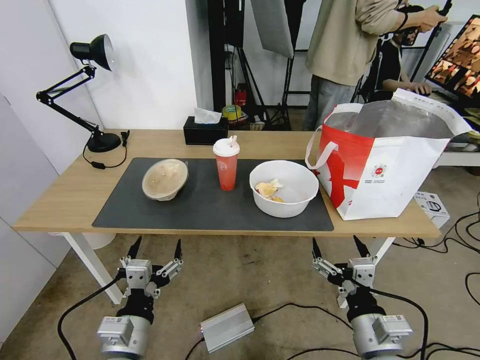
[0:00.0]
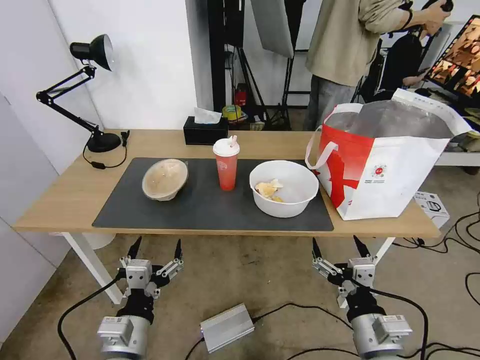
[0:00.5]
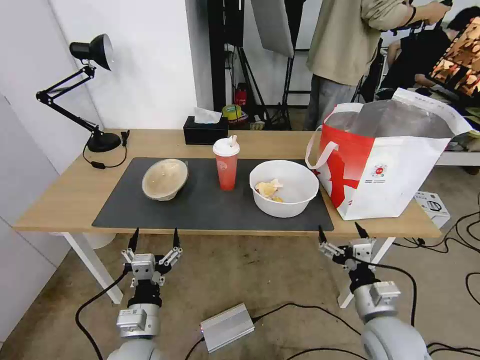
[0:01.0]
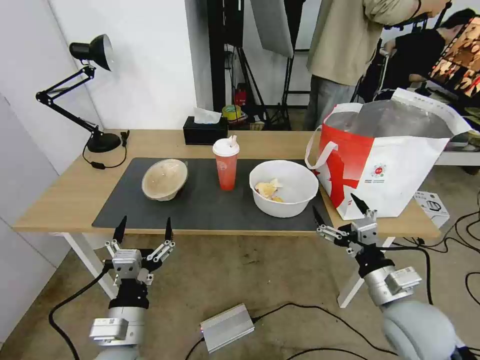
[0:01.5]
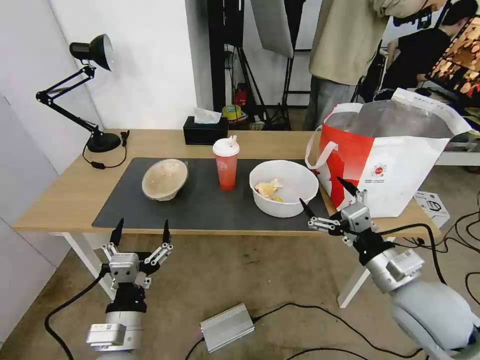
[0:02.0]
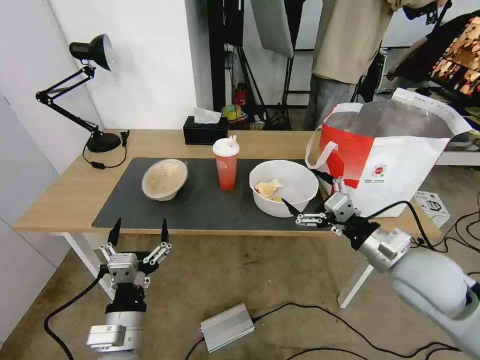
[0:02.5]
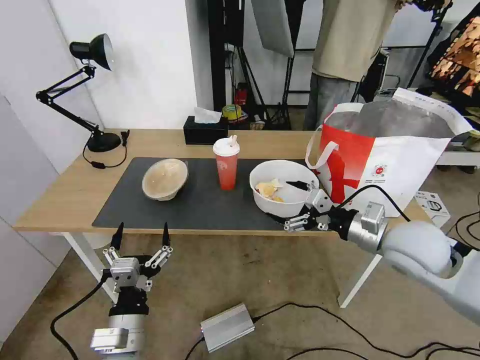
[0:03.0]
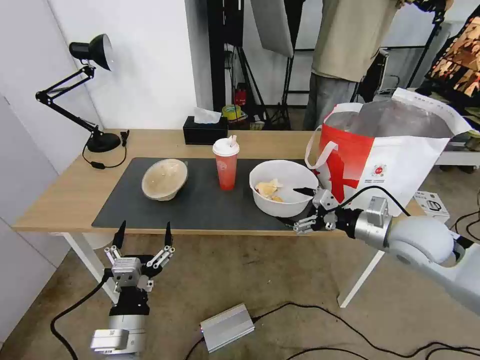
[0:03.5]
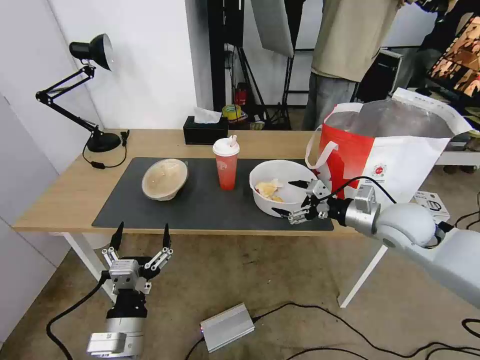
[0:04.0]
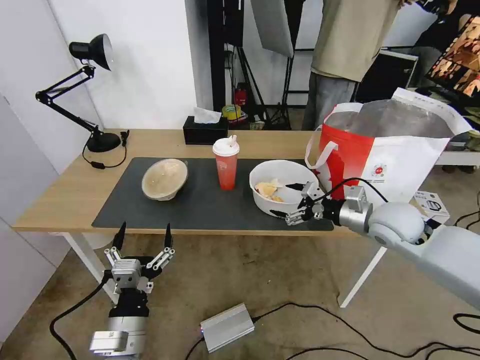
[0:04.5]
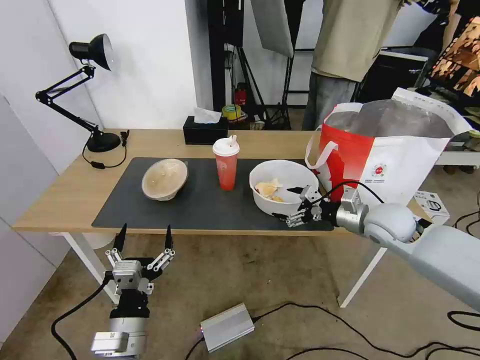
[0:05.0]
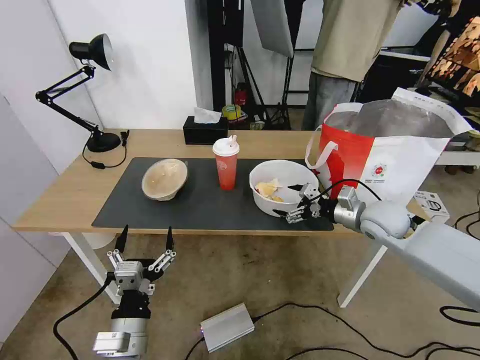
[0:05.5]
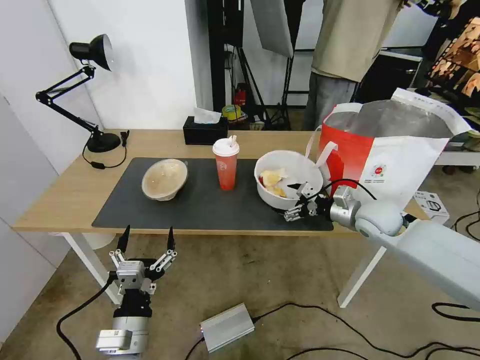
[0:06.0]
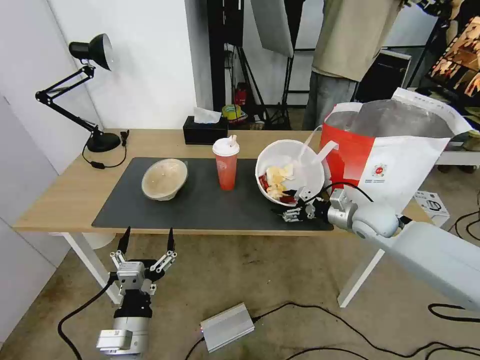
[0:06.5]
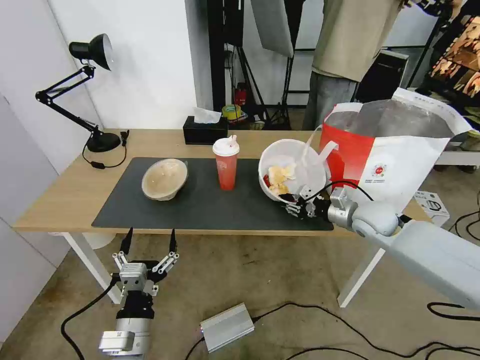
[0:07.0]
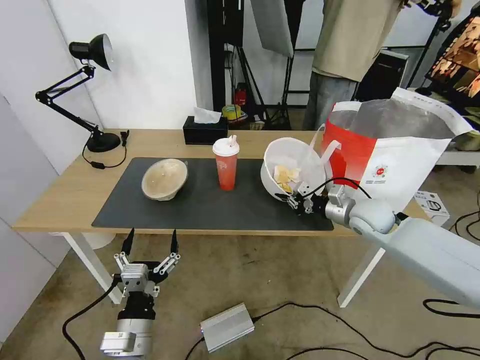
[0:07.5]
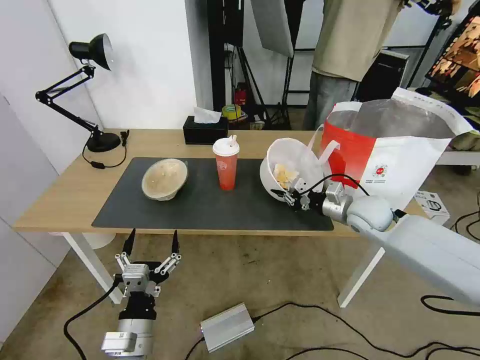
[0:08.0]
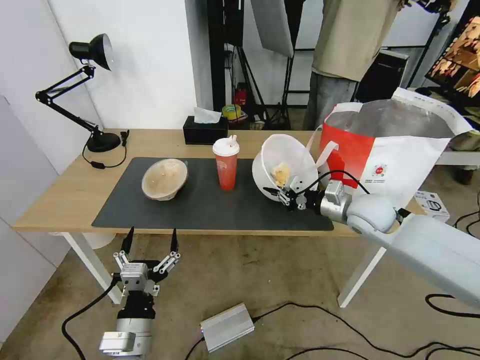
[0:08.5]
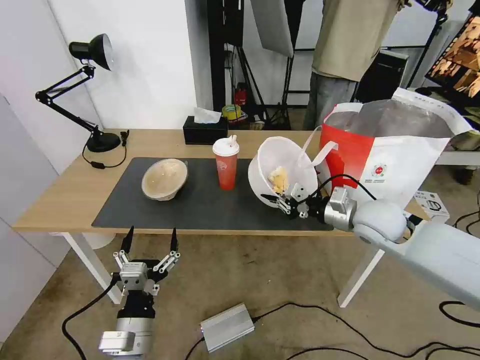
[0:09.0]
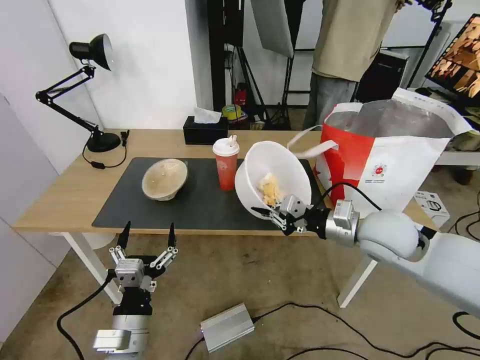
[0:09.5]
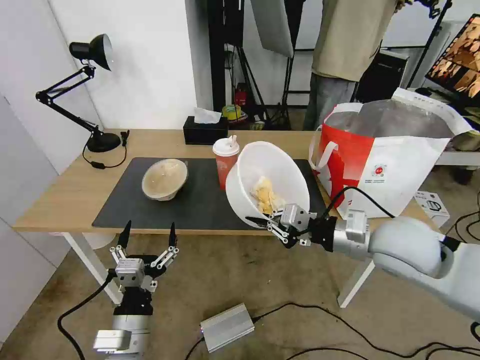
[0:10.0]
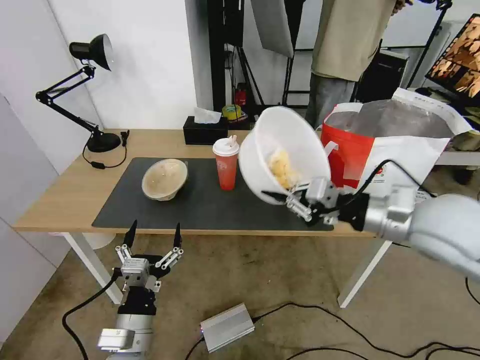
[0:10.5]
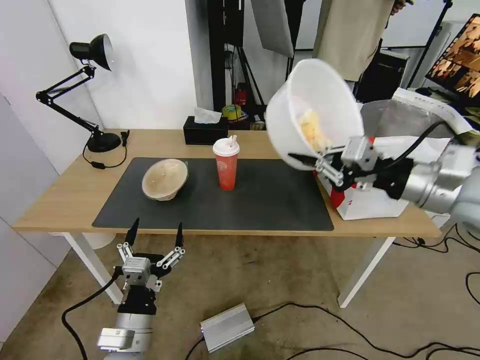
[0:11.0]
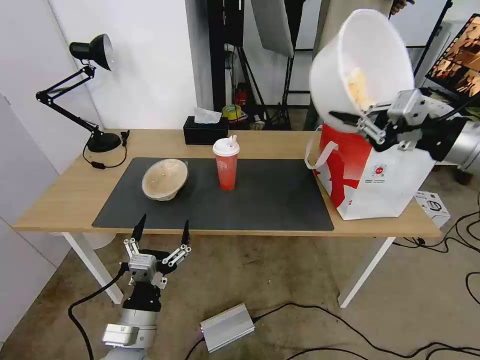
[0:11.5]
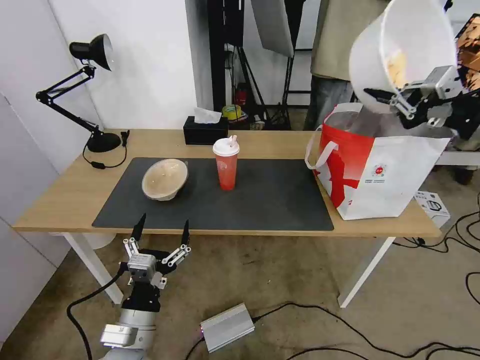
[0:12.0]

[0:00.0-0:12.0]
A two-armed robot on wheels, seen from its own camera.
Task of the whole recording: Pick up the trash from the table and place it into the takeout bag.
2.0 to 4.0 s: The right gripper shifts approximately 15 cm forward.
4.0 to 6.0 s: The right gripper goes approximately 10 cm forward and downward.
6.0 to 8.0 s: The right gripper closes up.
8.0 to 10.0 s: The right gripper moves backward and upward, about 15 cm.
10.0 to 12.0 s: The right gripper goes some 25 cm to the right and upward.

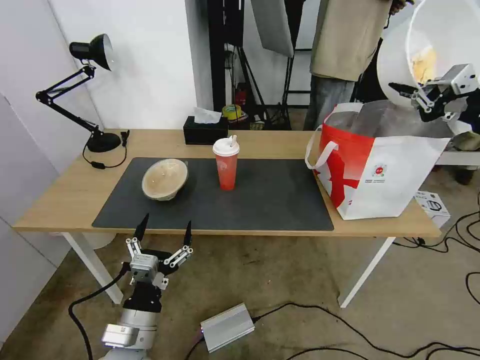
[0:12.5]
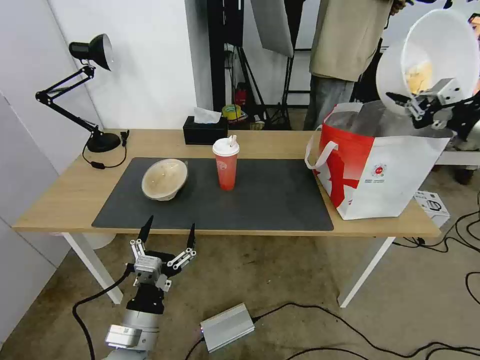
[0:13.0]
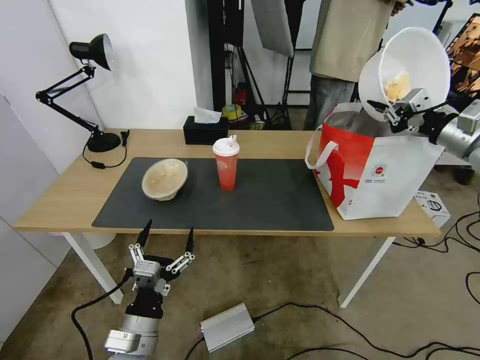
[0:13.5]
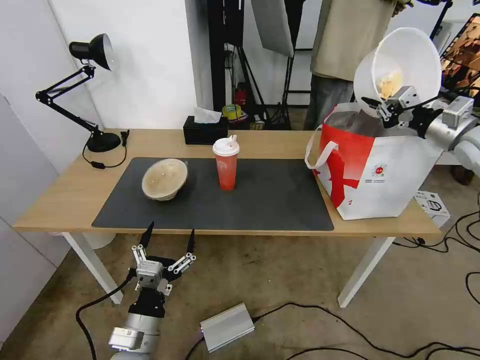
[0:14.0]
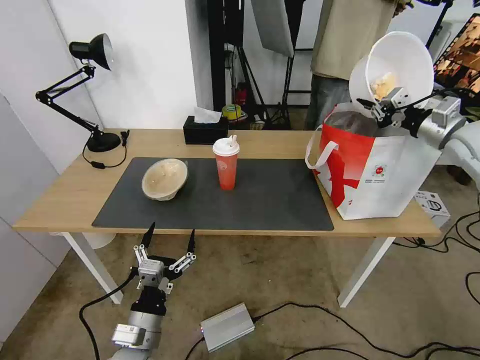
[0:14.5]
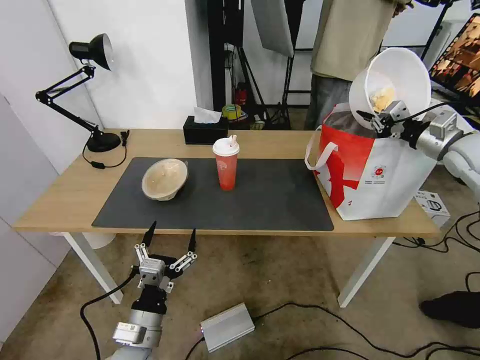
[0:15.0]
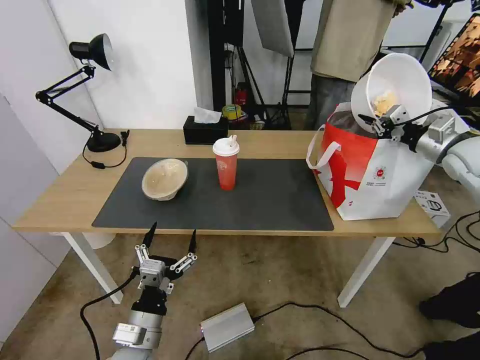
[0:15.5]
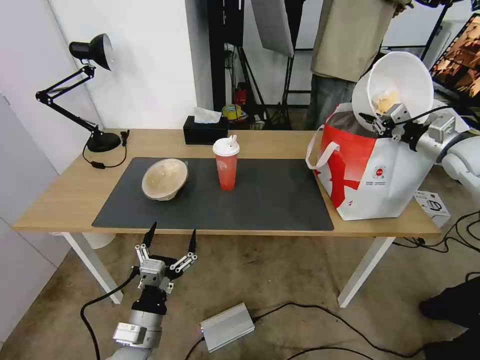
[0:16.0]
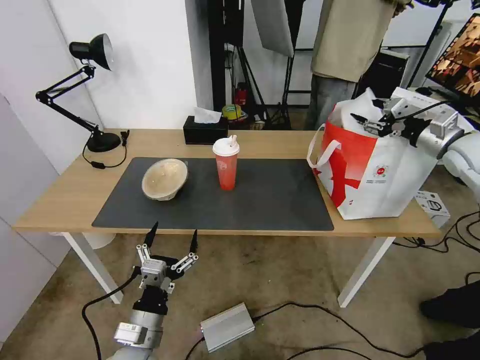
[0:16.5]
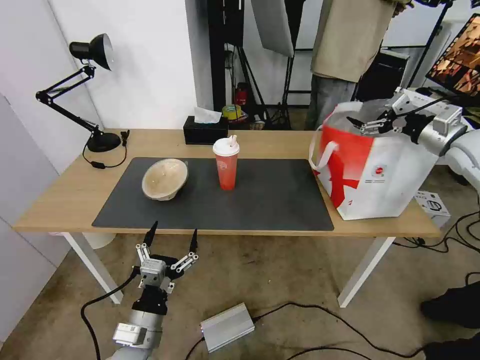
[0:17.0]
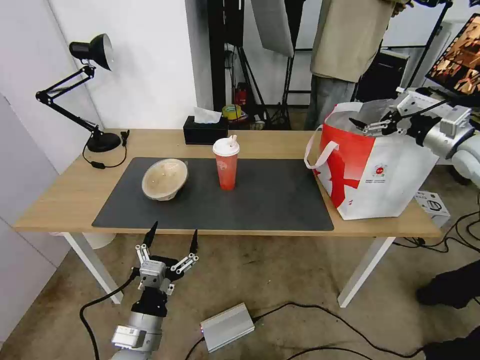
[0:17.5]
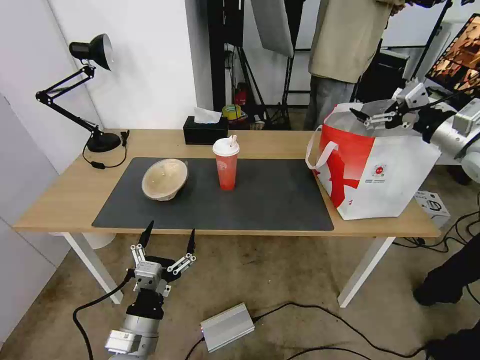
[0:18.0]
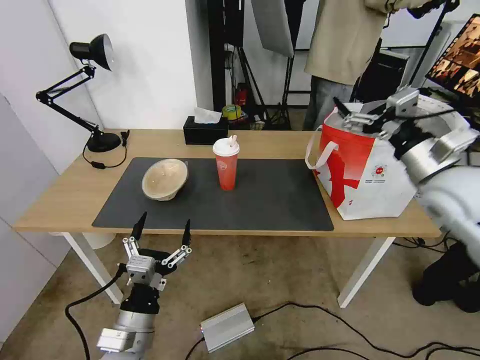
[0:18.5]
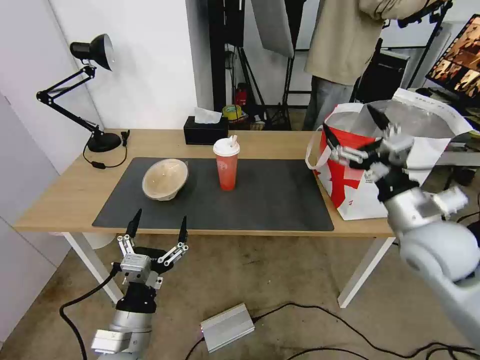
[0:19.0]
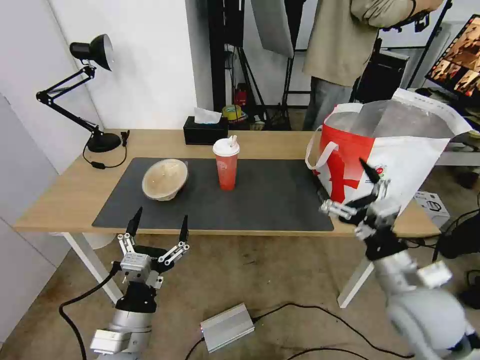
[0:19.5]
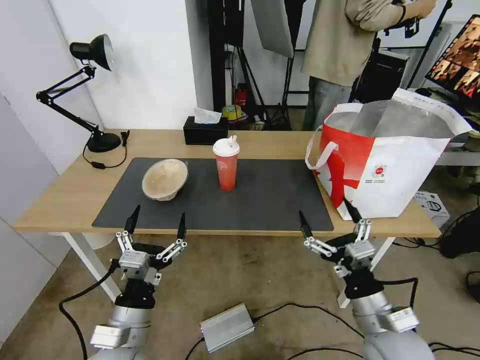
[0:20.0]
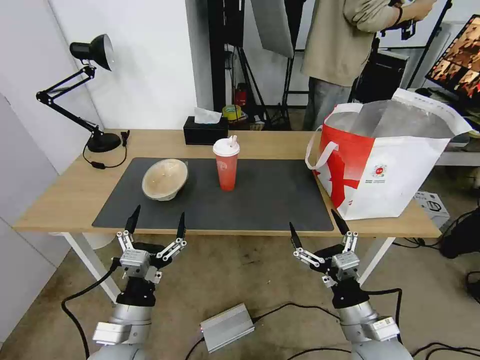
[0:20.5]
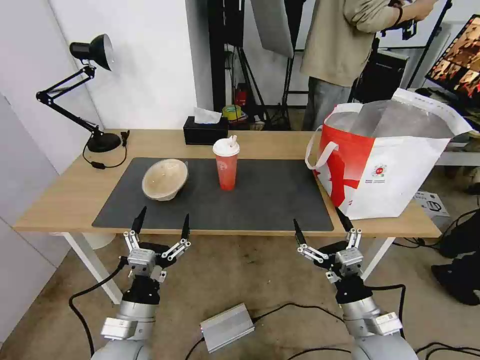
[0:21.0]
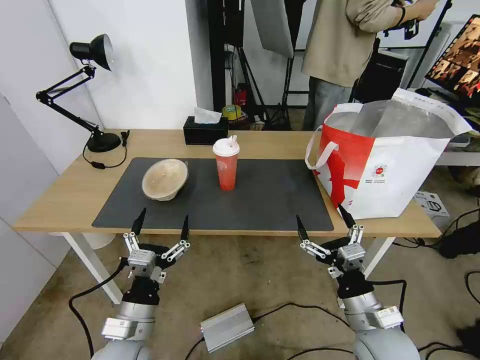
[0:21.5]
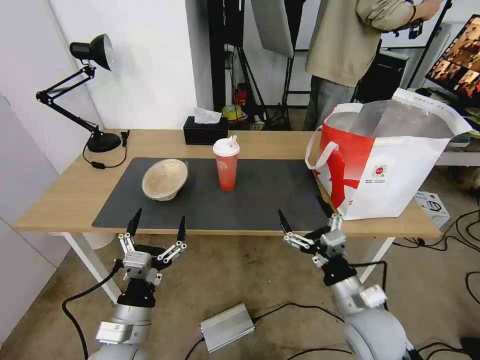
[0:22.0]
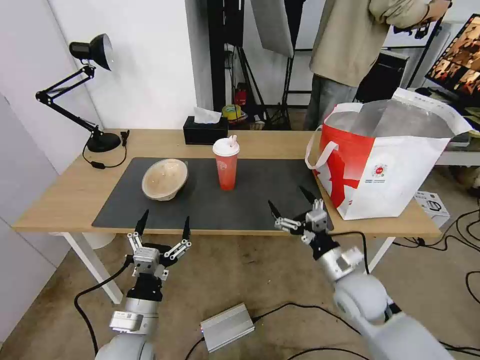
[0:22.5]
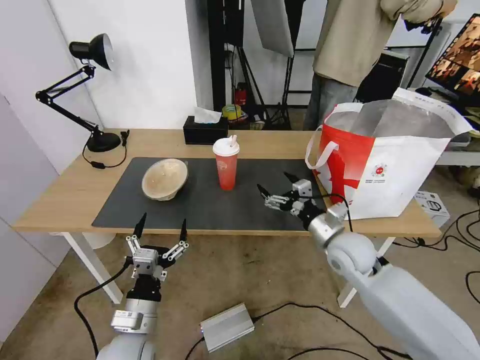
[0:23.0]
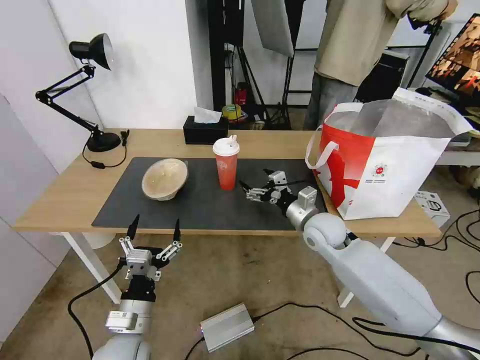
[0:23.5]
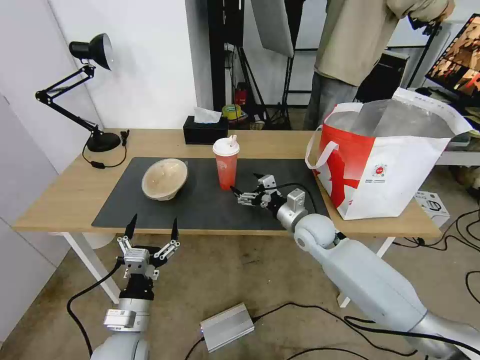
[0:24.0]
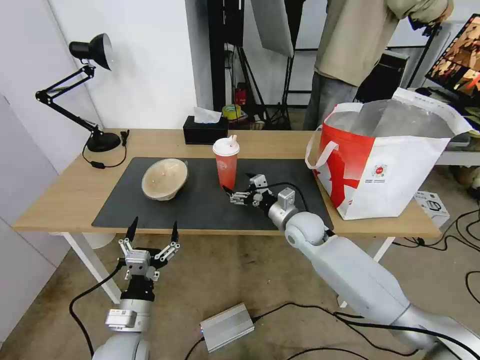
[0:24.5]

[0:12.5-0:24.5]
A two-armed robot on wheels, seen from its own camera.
Task of the whole recording: Pick up the trash from the table and place it into the takeout bag.
12.5 to 14.5 s: The right gripper travels forward and downward by about 15 cm.
14.5 to 16.5 s: The right gripper opens up.
16.5 to 18.5 s: The right gripper goes about 20 cm to the left and backward, and opens its fingers.
18.5 to 20.5 s: The right gripper is displaced downward, backward and to the left by some 30 cm.
20.5 to 22.5 s: The right gripper travels forward by about 10 cm.
22.5 to 24.5 s: The right gripper shifts some 20 cm forward and to the left.

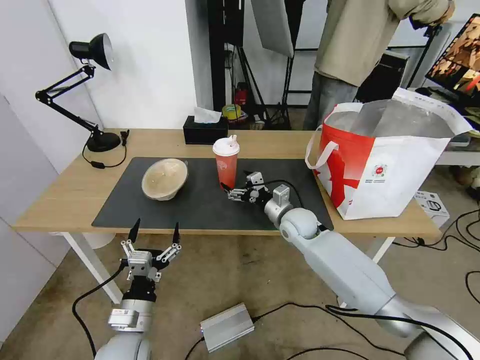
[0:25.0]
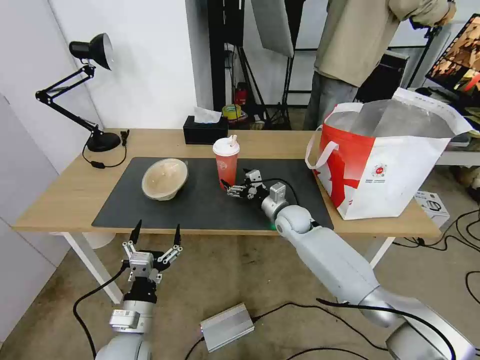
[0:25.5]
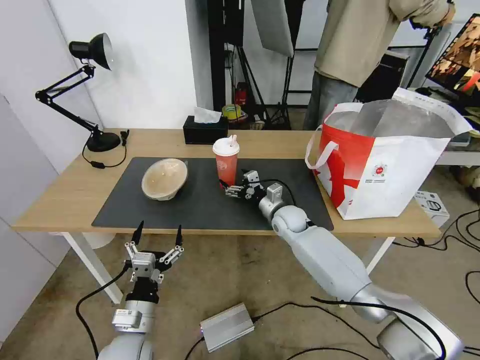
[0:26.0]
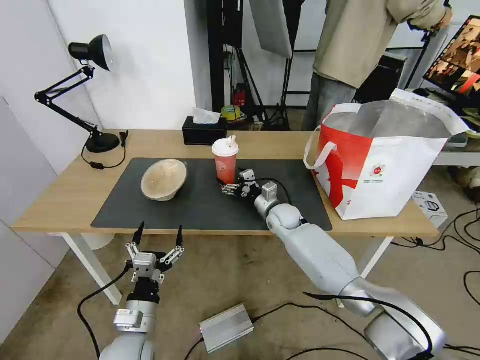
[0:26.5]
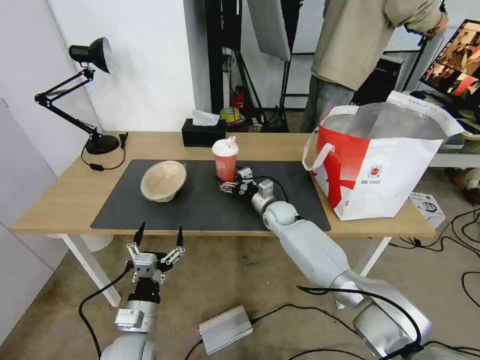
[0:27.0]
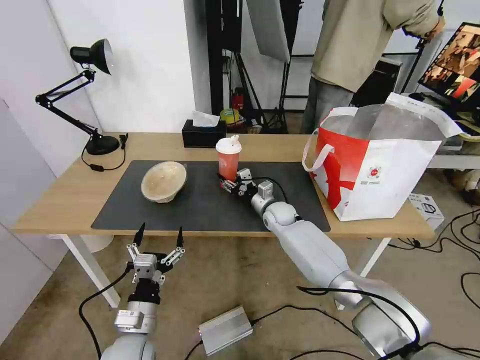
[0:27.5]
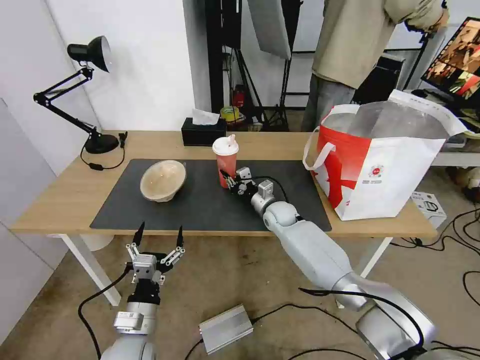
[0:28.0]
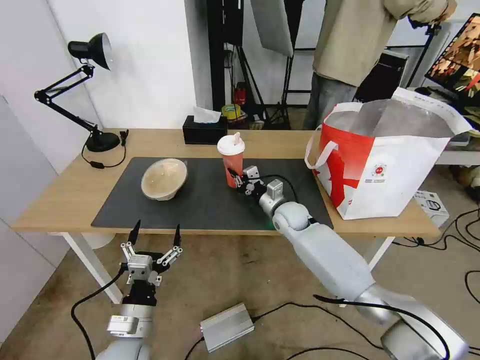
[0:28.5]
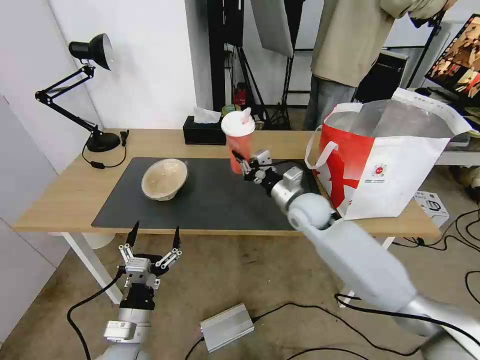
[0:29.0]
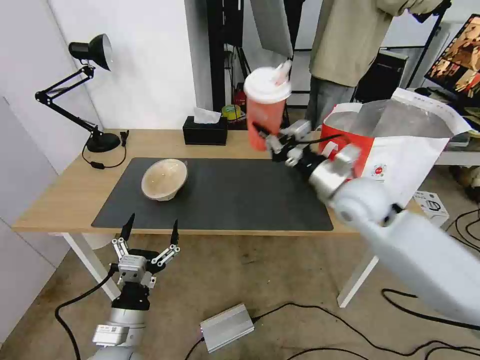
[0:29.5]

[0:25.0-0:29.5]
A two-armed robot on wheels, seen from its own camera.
Task of the whole recording: Pick up the trash from the table and place it into the takeout bag.
25.0 to 27.0 s: The right gripper moves forward and downward, some 10 cm.
27.0 to 29.5 s: The right gripper moves upward, backward and to the right, some 30 cm, and closes up, while the left gripper shifts by approximately 5 cm.
